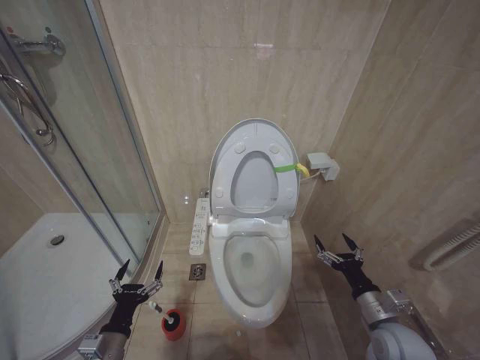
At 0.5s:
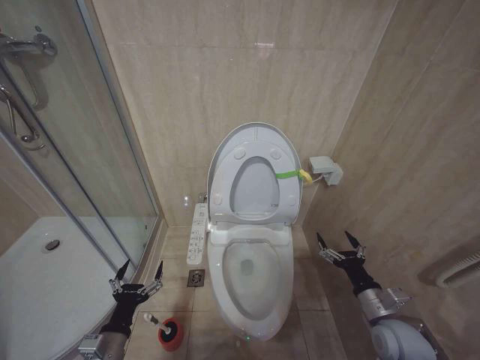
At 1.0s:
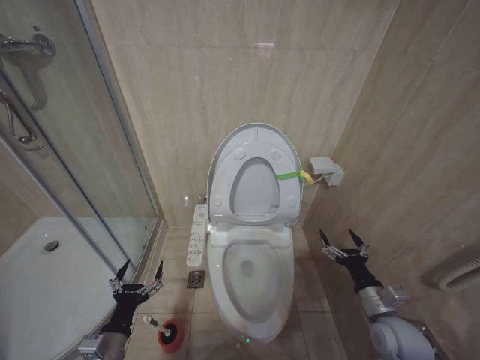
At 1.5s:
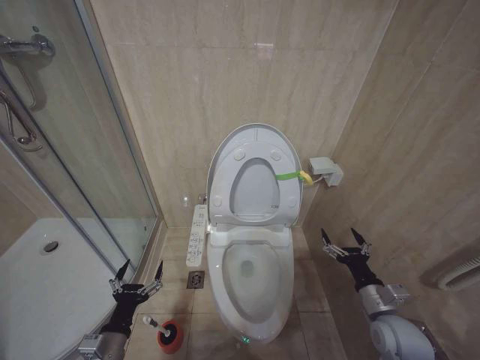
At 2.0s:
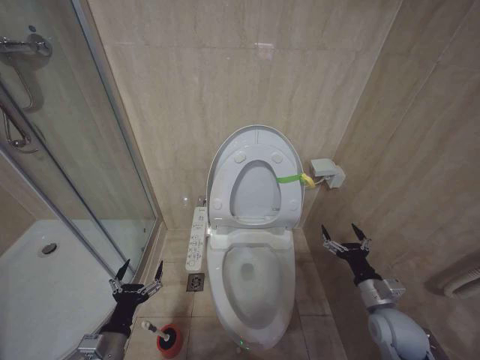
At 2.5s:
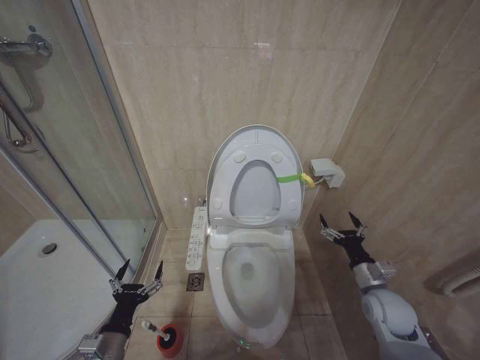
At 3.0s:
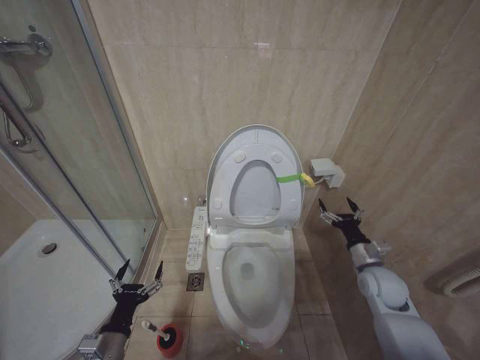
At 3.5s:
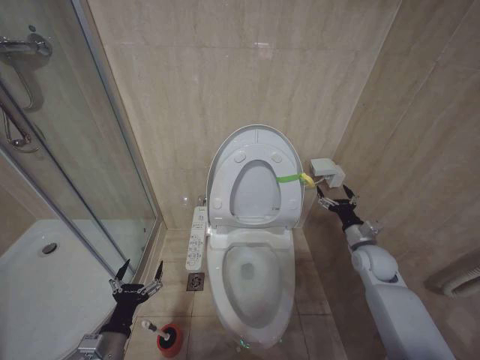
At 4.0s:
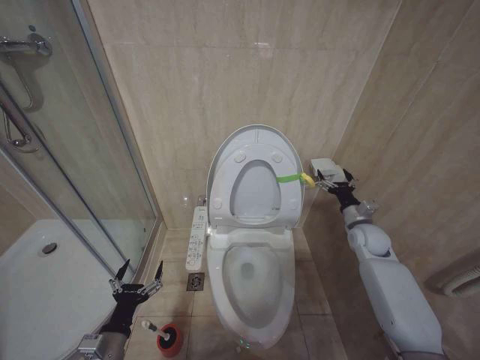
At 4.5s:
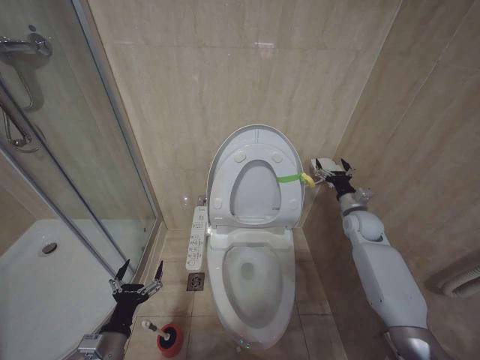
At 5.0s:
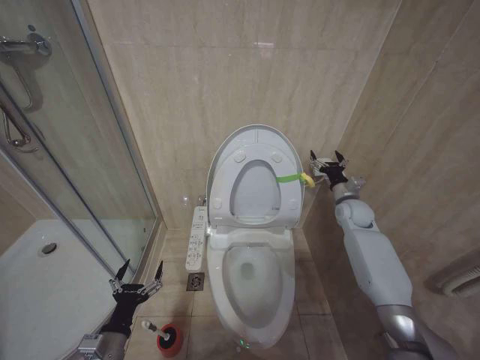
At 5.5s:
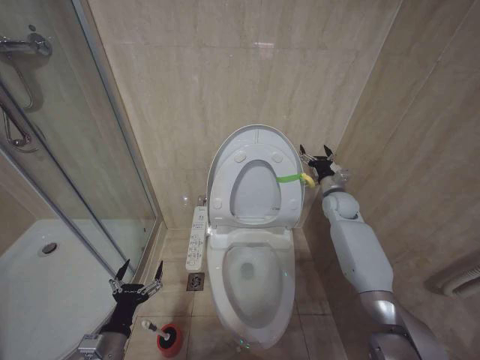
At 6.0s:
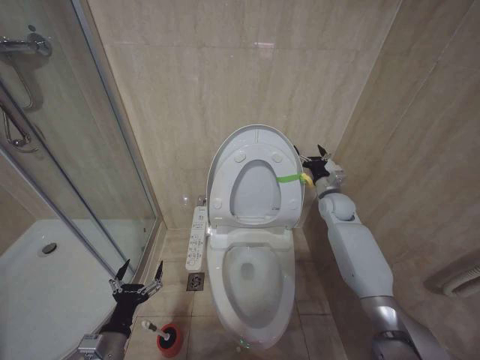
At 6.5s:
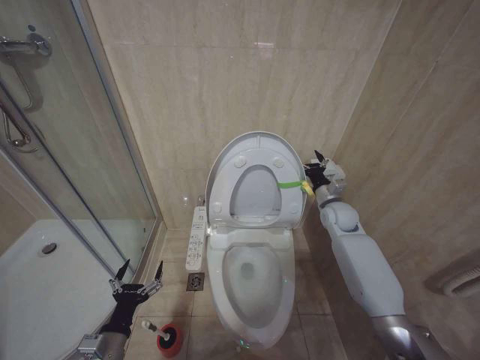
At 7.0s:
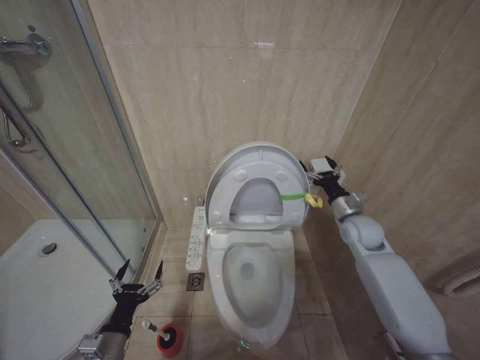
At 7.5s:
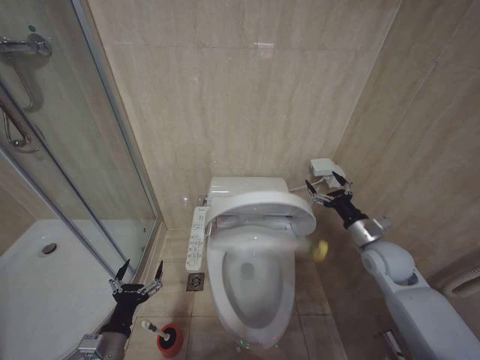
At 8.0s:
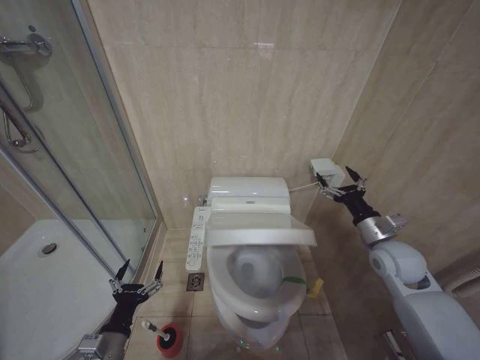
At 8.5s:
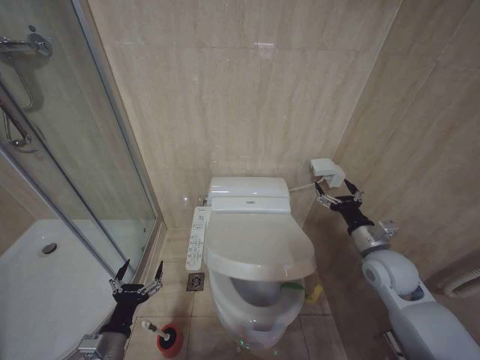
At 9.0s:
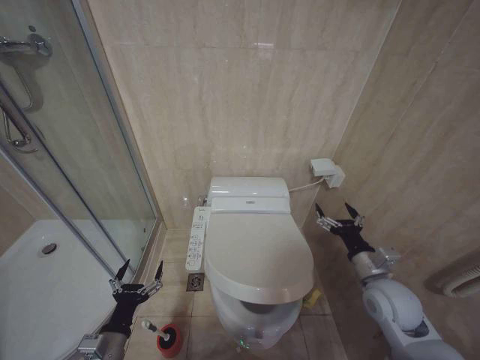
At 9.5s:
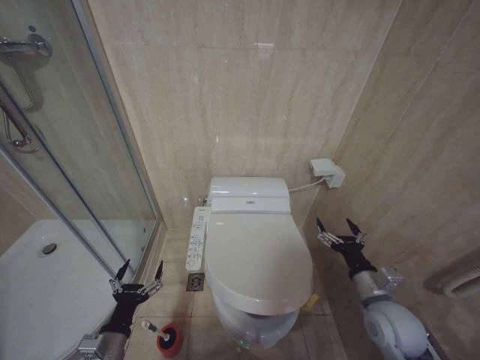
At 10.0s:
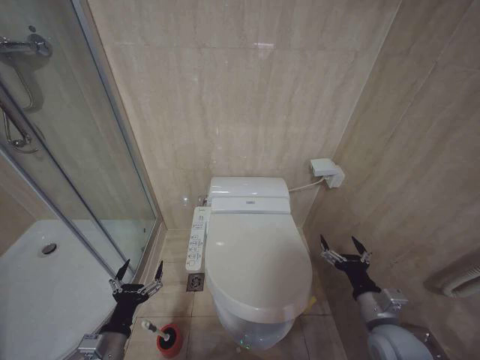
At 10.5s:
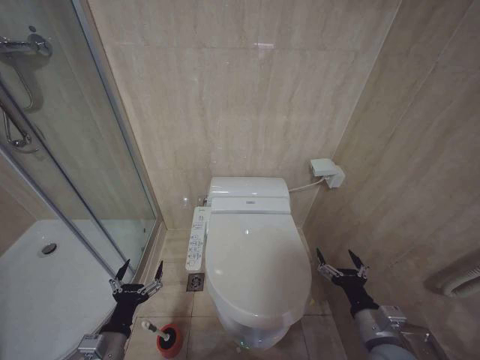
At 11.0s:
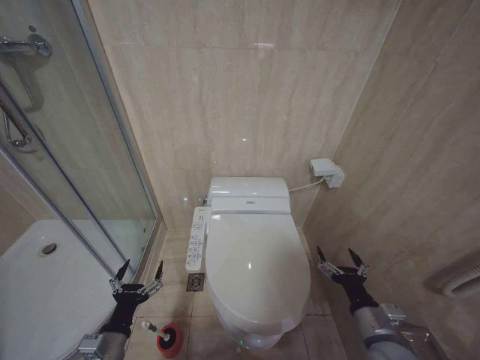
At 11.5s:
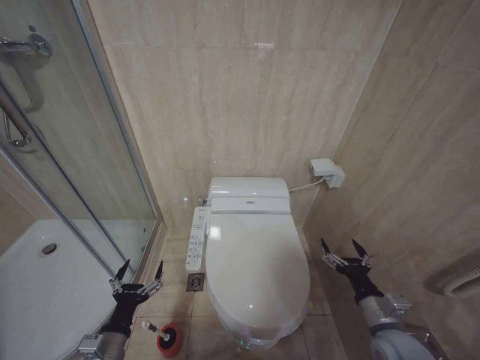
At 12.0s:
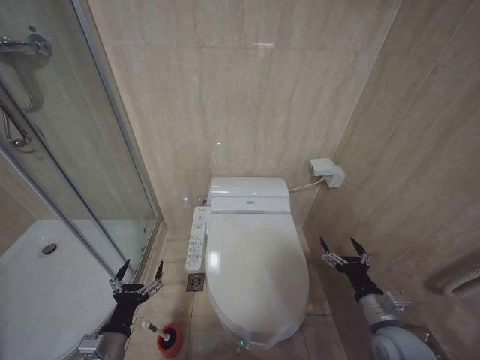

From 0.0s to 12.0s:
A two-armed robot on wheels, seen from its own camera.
Task of the whole recording: Open the toilet lid, clean the toilet bowl with a toilet brush, close the toilet lid, and flush.
From 0.0s to 2.0s: There are only small adjustments of the grippers.
From 2.0s to 4.0s: The right gripper travels forward by approximately 20 cm.
From 4.0s to 6.0s: The right gripper travels forward, to the left and upward by roughly 15 cm.
From 6.0s to 8.0s: The right gripper heads backward, covering roughly 20 cm.
From 8.0s to 10.0s: The right gripper moves backward, downward and to the left, roughly 20 cm.

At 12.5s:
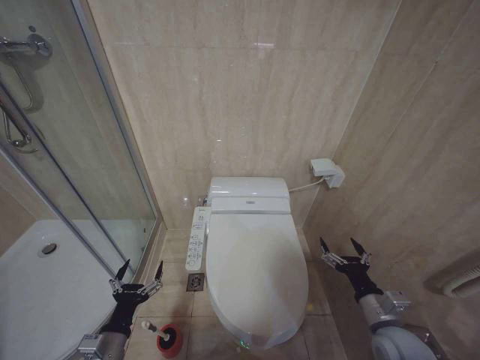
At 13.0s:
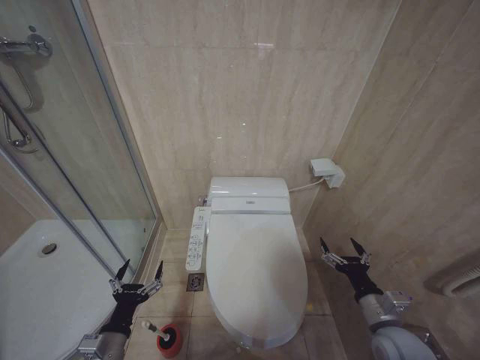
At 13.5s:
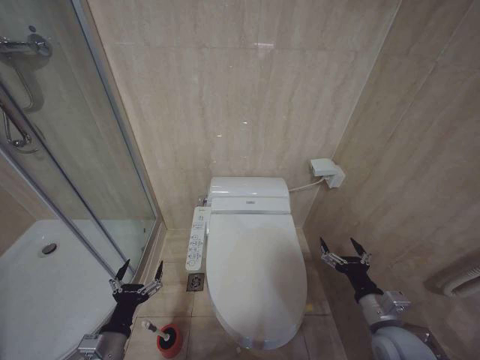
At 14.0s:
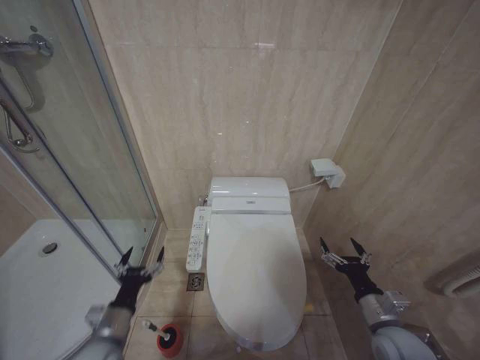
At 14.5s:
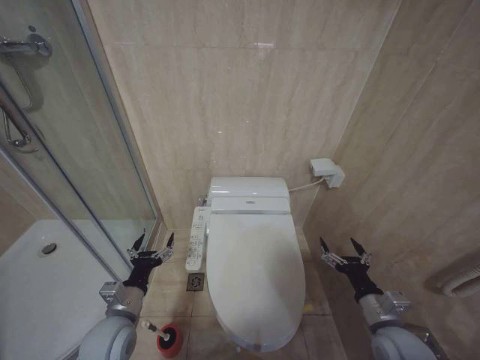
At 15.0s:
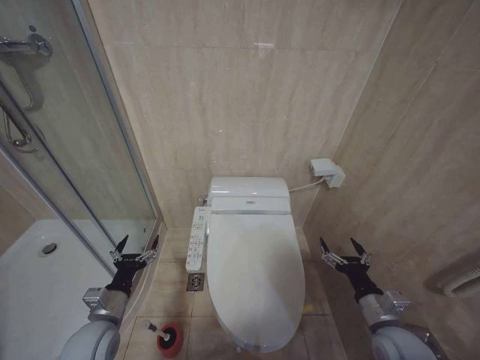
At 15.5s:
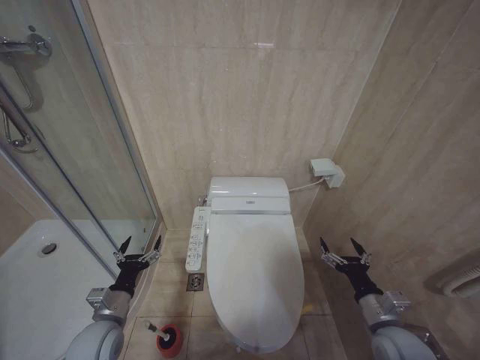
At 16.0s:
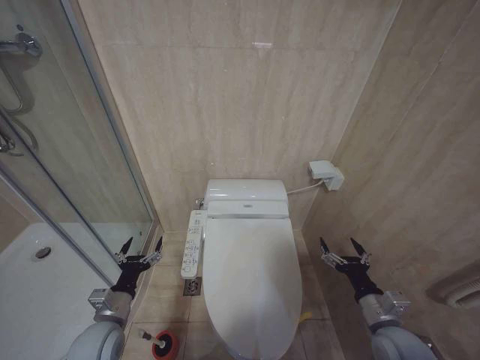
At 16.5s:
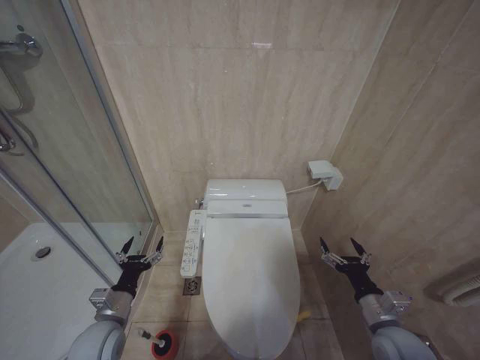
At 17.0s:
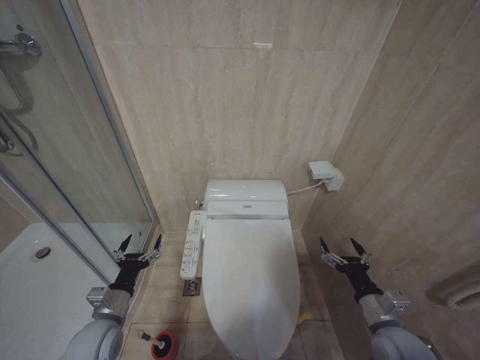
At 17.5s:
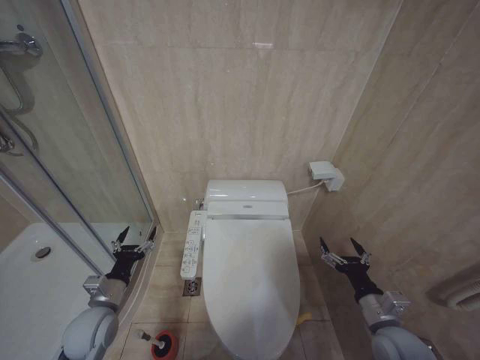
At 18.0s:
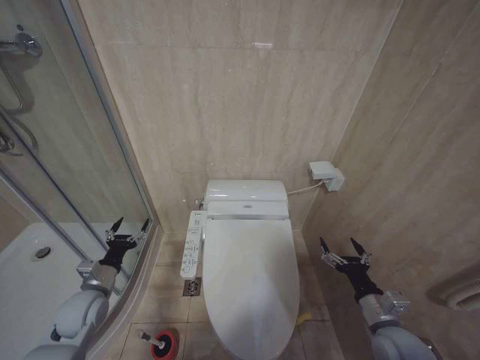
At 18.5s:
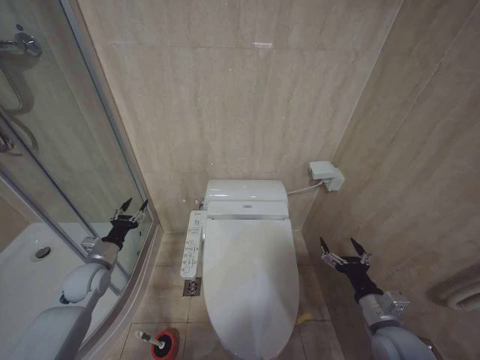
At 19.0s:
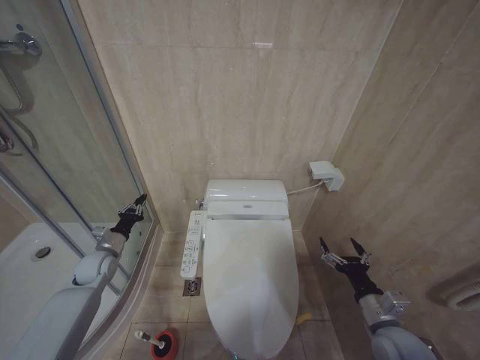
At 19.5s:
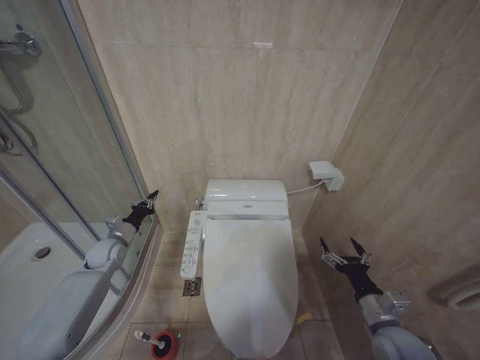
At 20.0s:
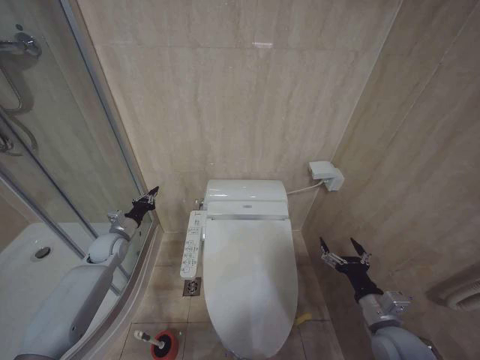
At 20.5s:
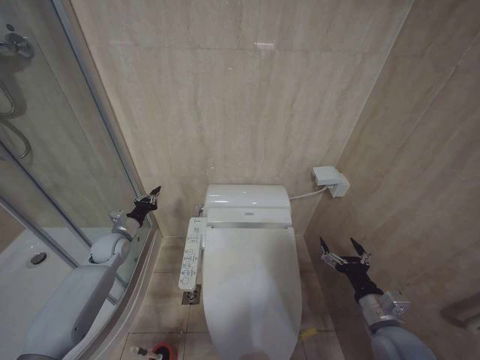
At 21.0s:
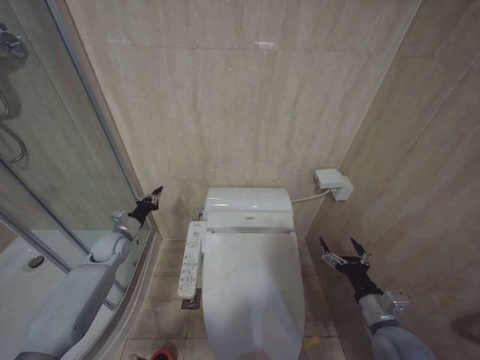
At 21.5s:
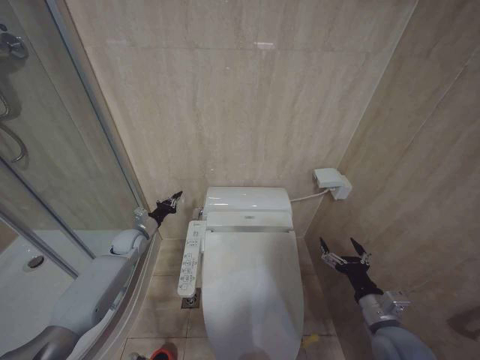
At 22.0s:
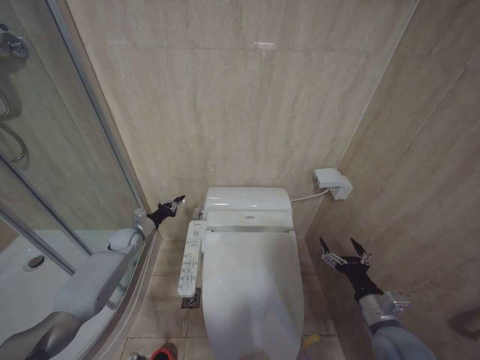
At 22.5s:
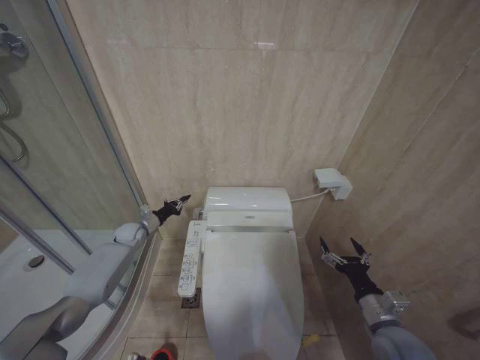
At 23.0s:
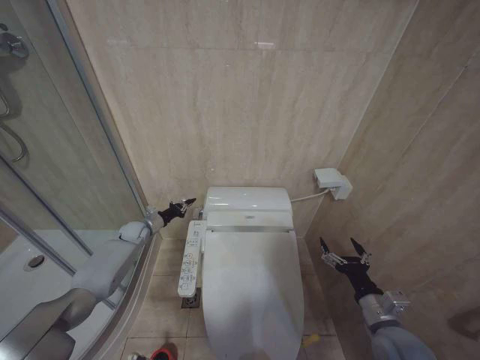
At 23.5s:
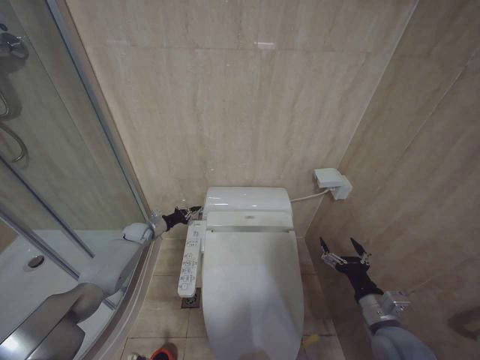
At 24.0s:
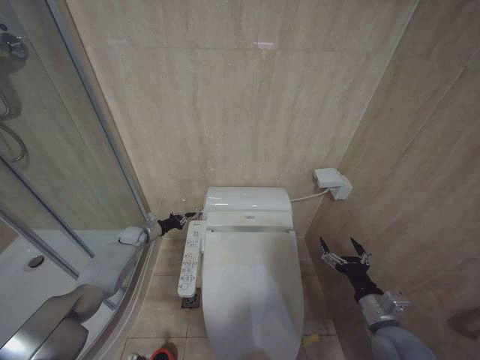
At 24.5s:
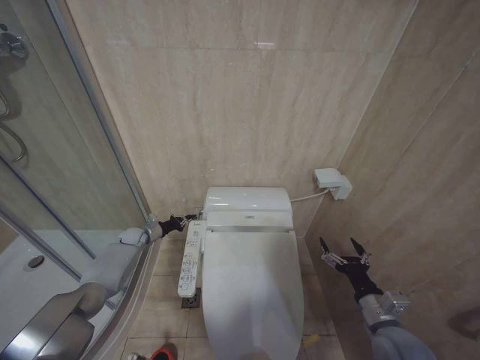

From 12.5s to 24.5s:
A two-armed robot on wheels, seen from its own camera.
Task of the whole recording: Open the toilet lid, clean the toilet bowl with a toilet brush, close the toilet lid, and flush.
From 12.5s to 14.5s: The left gripper goes roughly 10 cm forward.
From 14.5s to 16.5s: The grippers stay close to where they were, moving slightly.
From 16.5s to 18.5s: The left gripper heads forward and to the left, covering approximately 15 cm.
From 18.5s to 20.5s: The left gripper moves forward, some 10 cm, and closes.
From 20.5s to 22.5s: The left gripper travels forward by some 10 cm.
From 22.5s to 24.5s: There are only small adjustments of the grippers.

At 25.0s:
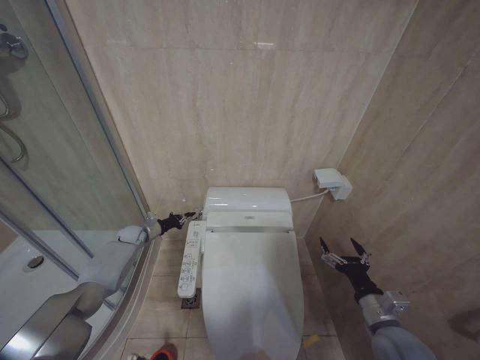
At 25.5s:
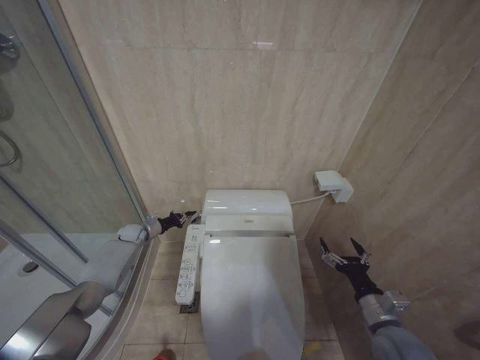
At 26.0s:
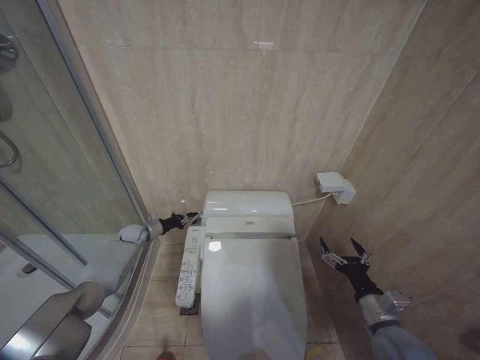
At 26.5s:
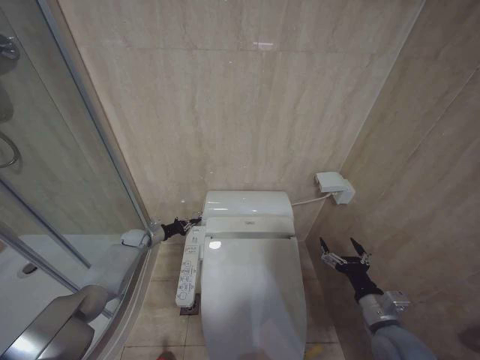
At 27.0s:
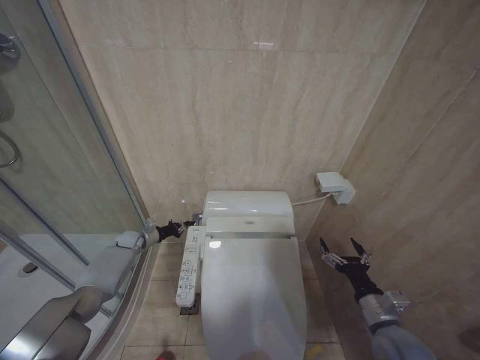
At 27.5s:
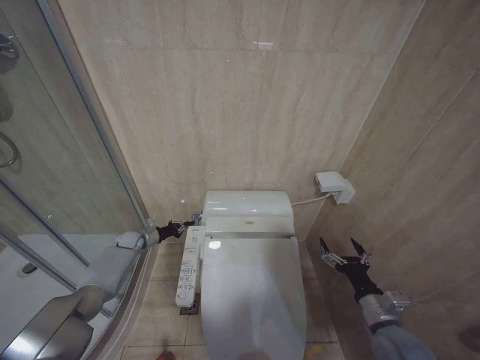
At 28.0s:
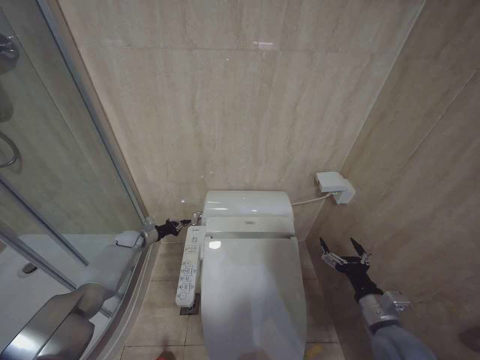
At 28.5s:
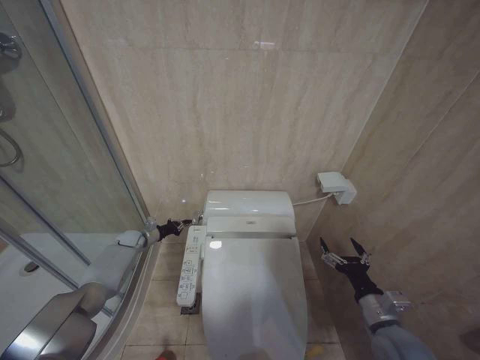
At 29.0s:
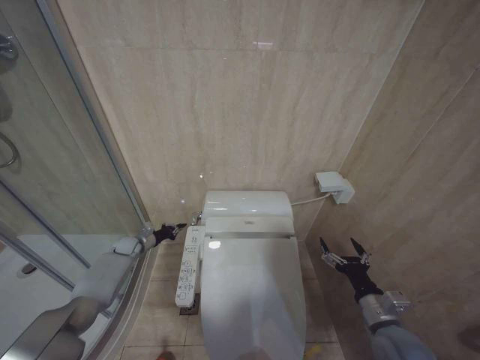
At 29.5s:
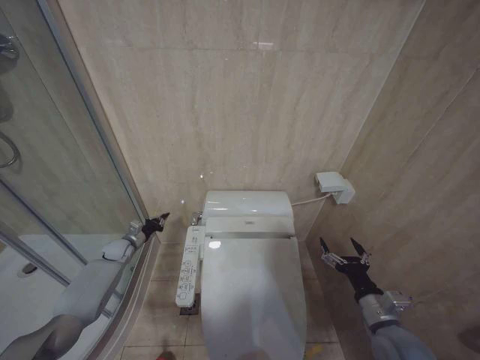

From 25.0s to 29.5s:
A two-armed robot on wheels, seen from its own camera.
Task of the whole recording: Open the toilet lid, clean the toilet bowl with a toilet brush, close the toilet lid, and flush.
From 25.0s to 27.0s: The grippers stay close to where they were, moving slightly.
